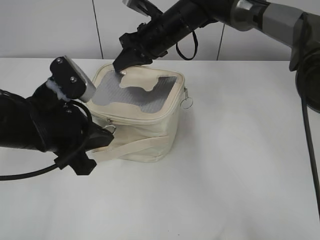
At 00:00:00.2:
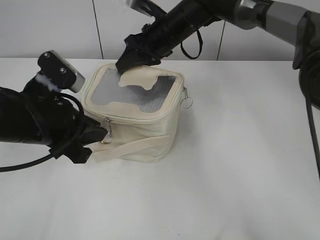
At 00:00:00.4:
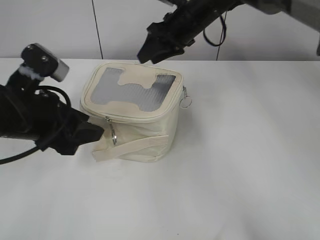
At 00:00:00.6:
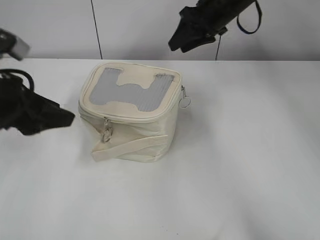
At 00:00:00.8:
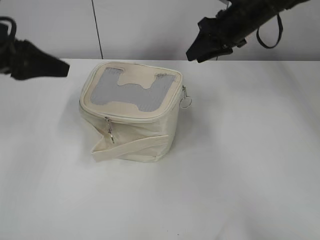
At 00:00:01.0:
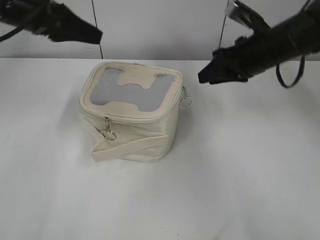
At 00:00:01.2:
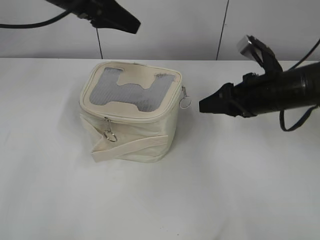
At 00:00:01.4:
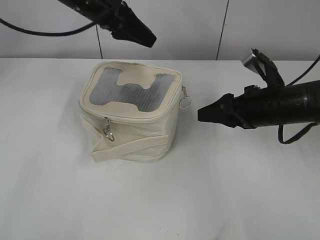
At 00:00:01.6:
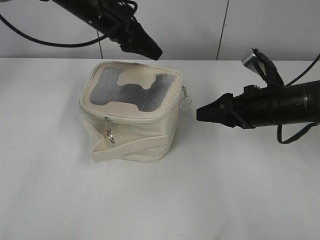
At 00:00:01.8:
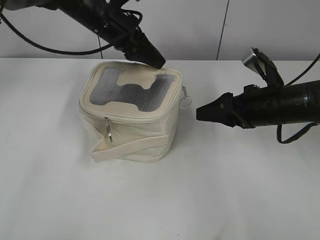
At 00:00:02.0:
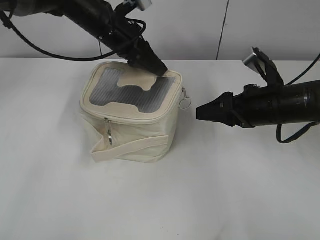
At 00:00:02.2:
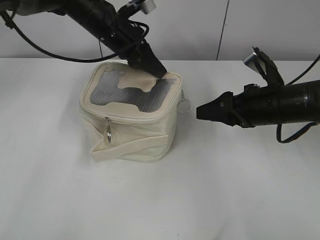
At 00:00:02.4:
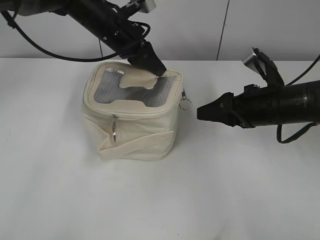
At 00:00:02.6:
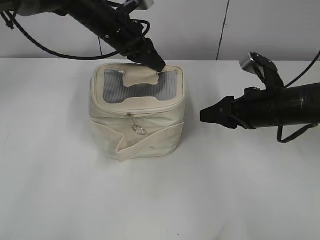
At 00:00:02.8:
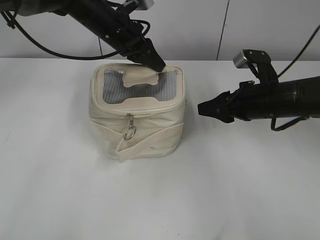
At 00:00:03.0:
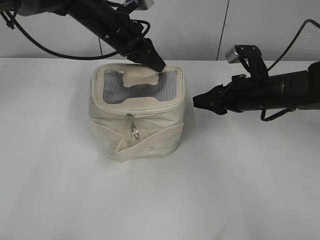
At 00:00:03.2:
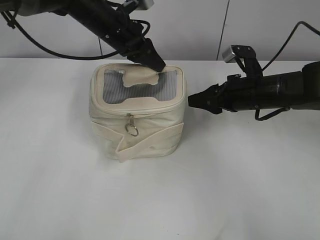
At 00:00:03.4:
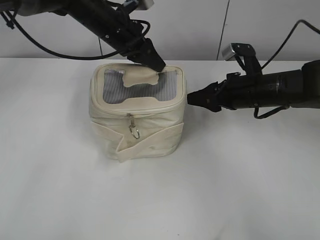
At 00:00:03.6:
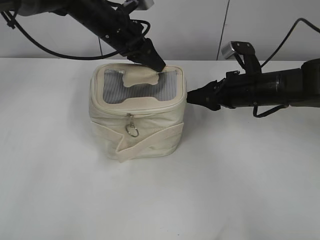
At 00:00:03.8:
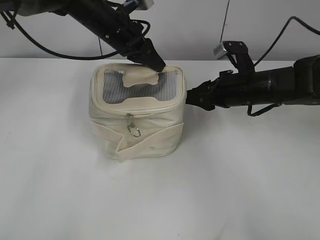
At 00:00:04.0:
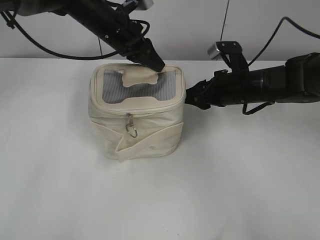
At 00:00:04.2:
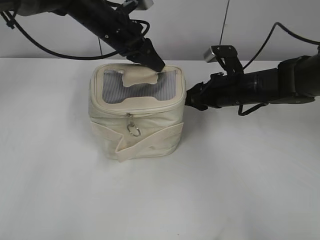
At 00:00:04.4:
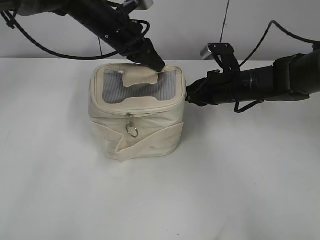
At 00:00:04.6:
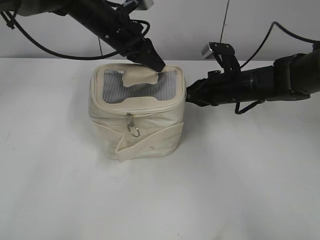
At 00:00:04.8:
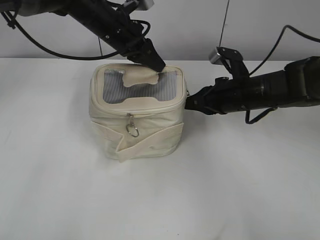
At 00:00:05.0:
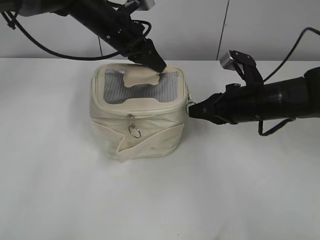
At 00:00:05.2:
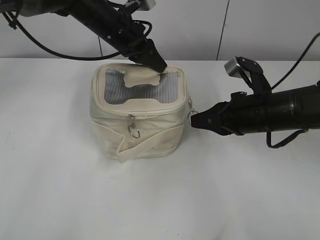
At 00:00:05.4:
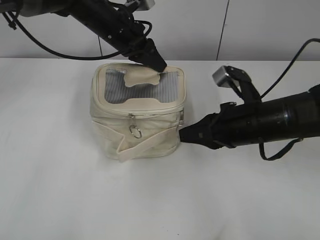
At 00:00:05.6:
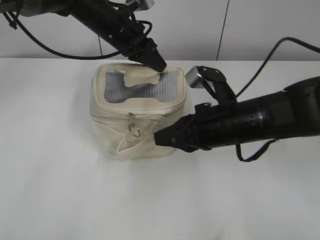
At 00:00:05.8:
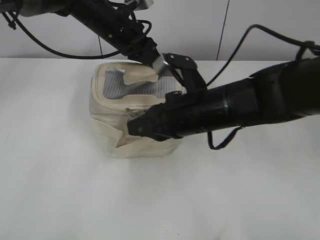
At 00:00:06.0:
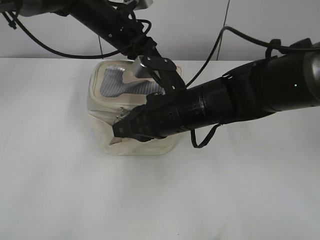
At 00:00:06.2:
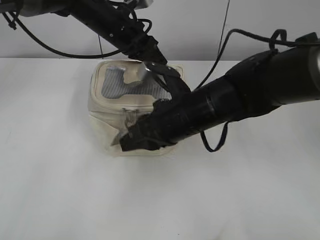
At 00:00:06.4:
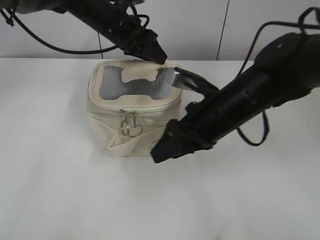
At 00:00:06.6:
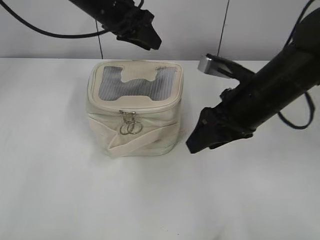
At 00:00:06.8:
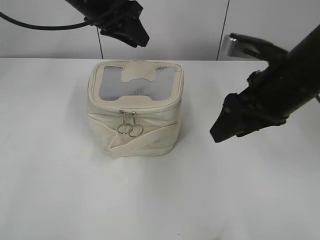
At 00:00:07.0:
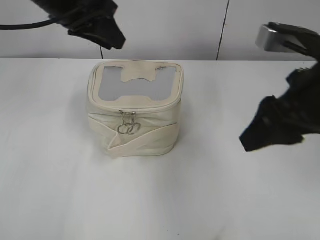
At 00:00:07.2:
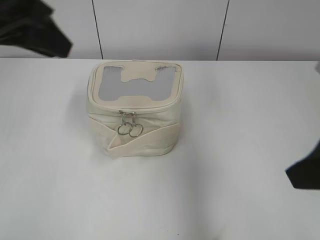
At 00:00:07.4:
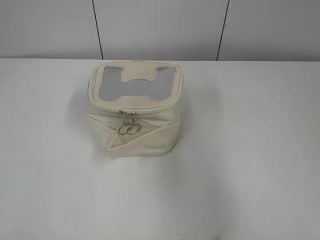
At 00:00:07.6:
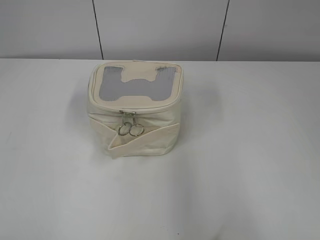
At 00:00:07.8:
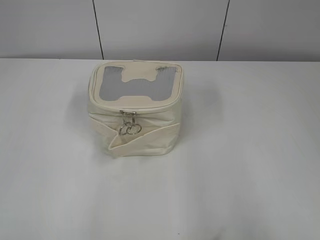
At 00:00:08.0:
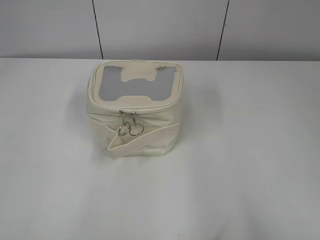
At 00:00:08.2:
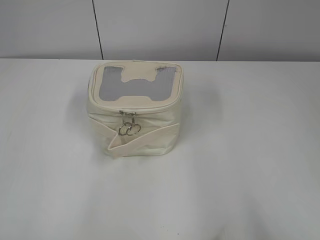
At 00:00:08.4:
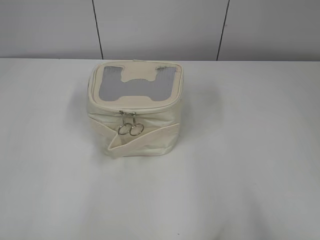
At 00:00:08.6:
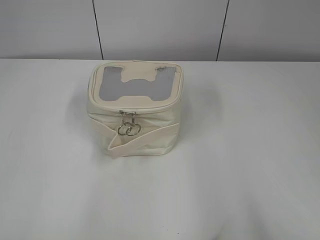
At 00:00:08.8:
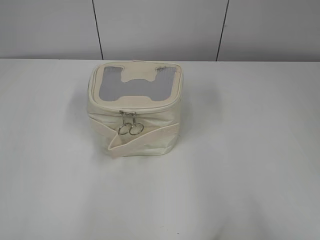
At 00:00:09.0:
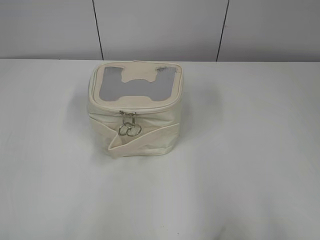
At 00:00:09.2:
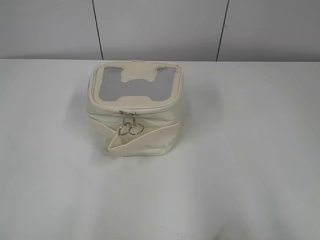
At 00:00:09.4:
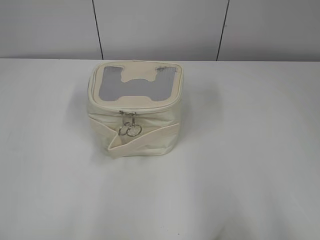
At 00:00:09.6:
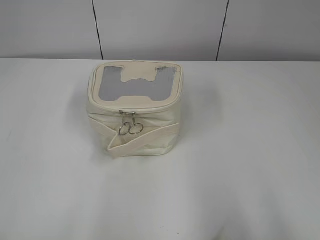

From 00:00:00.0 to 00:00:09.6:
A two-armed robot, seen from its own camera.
Step, from 00:00:00.6 to 00:00:06.2: Zip up the bag with your right hand.
Step, from 00:00:06.4 to 00:00:06.8: Hold the bag with your left hand.
From 00:00:00.0 to 00:00:01.6: The left gripper heads forward, covering approximately 20 cm, and opens. The right gripper shifts roughly 25 cm to the right and backward, and opens.
From 00:00:01.6 to 00:00:03.2: The left gripper closes its fingers. The right gripper shifts approximately 5 cm forward.
From 00:00:03.2 to 00:00:04.8: The right gripper closes its fingers.
From 00:00:04.8 to 00:00:06.4: The right gripper is displaced backward and to the left by some 10 cm, and opens its fingers. The left gripper opens up.
From 00:00:06.4 to 00:00:08.0: The left gripper heads backward and to the left, covering about 50 cm, and opens up; the right gripper moves backward, to the right and upward, roughly 35 cm.
